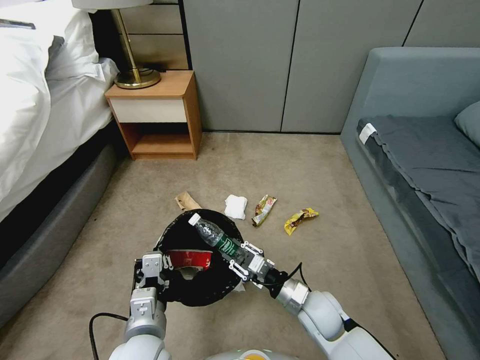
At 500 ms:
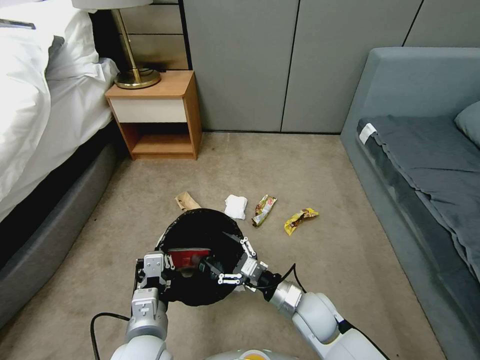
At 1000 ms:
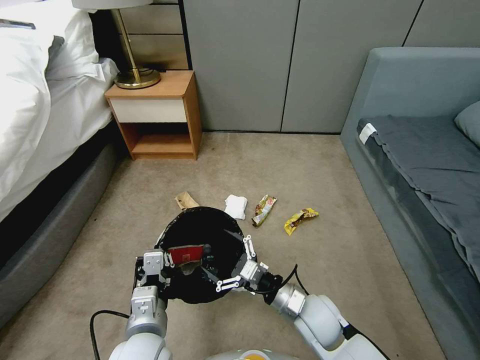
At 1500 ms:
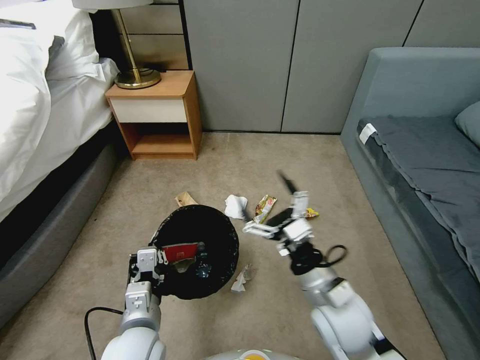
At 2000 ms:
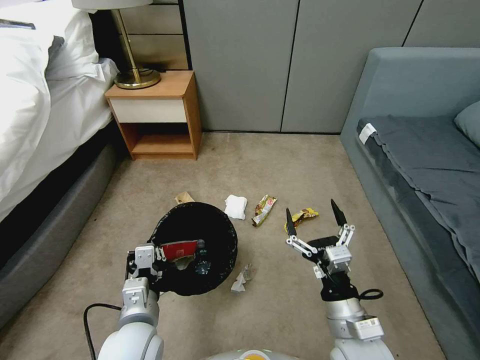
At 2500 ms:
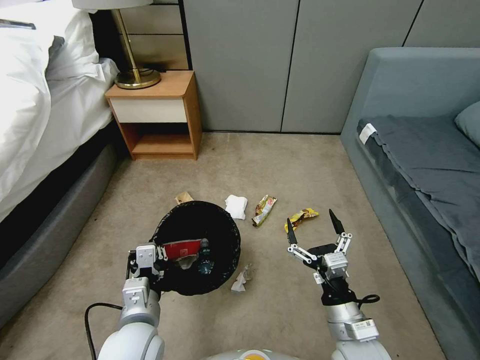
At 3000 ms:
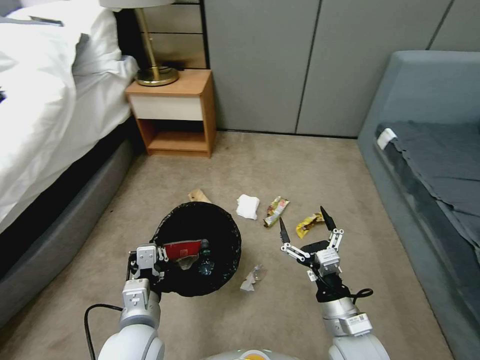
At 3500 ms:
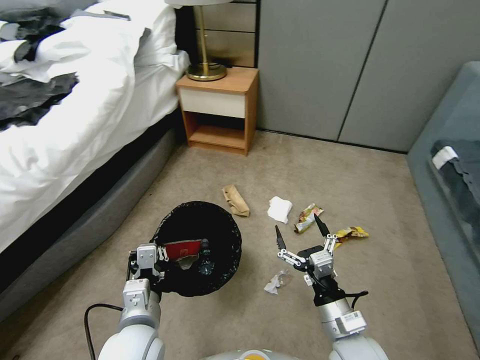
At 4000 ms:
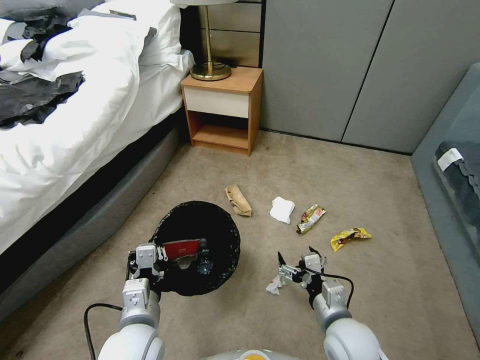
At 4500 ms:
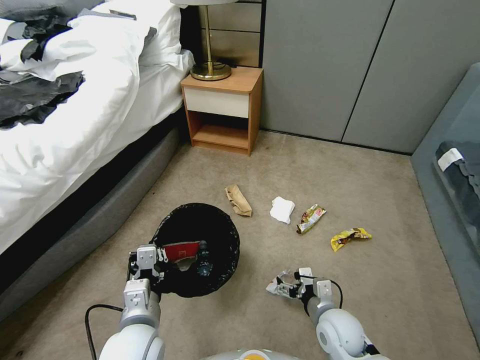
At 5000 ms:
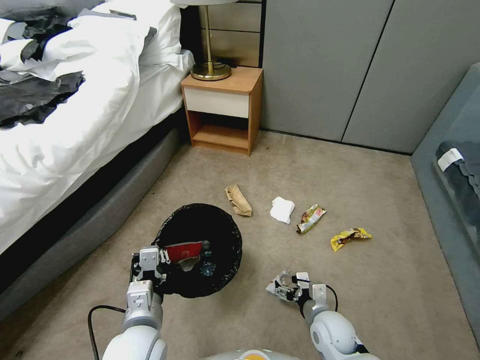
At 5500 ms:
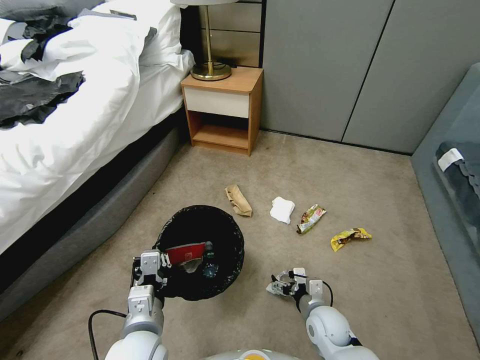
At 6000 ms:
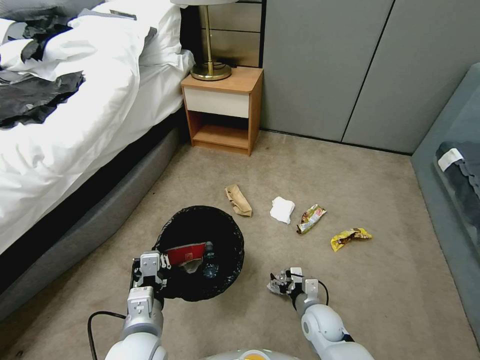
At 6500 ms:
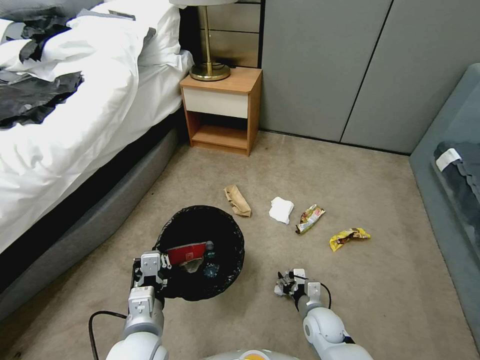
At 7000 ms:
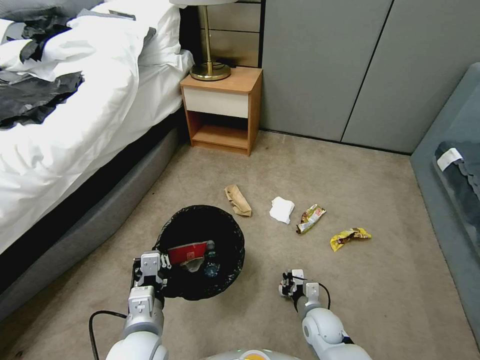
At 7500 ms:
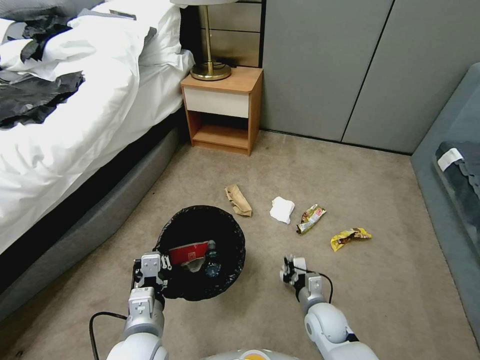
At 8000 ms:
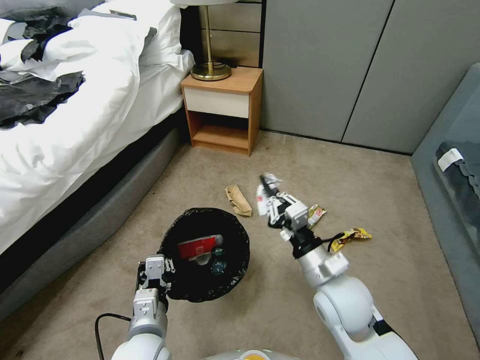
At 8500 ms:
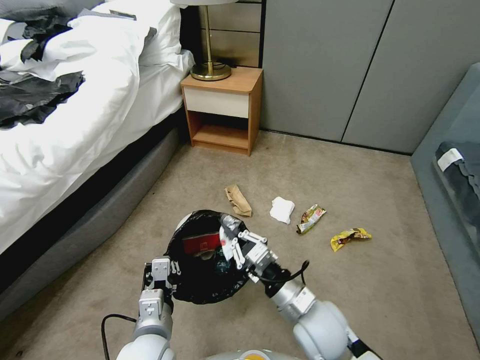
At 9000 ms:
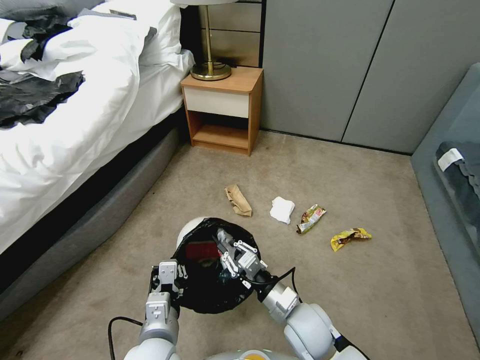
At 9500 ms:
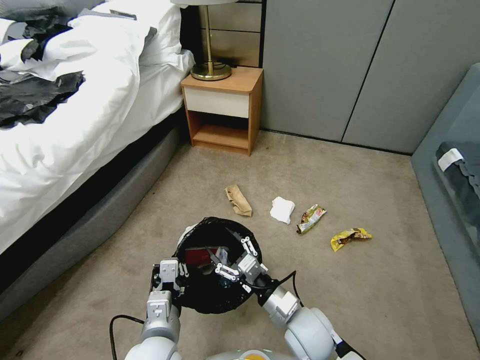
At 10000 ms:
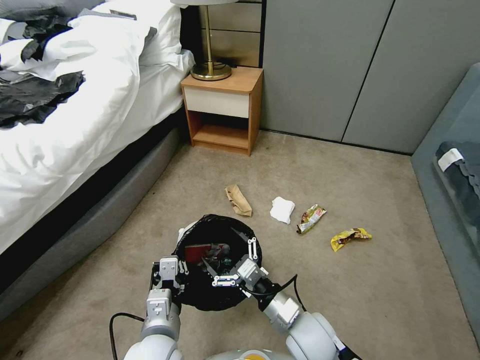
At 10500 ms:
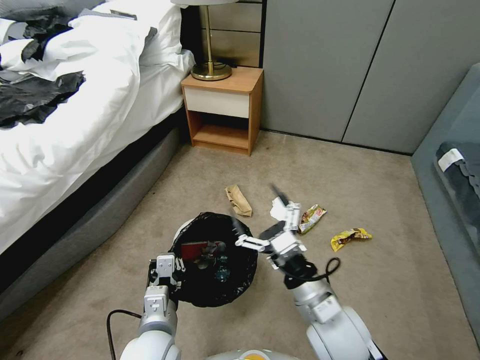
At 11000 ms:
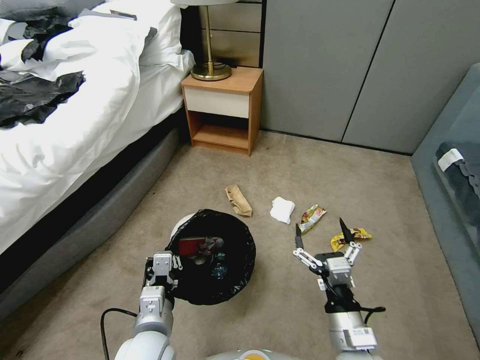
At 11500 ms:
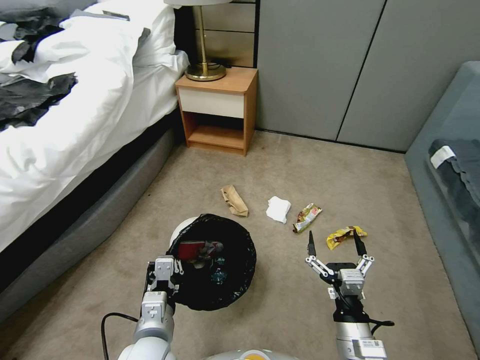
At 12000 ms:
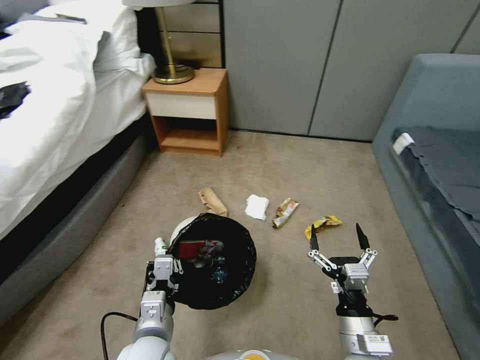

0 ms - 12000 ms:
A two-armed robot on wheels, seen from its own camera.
Task of the whole recording: Pick up the trash bin, then pick up the garbage from the floor and place it into the trash bin.
0 ms - 2000 ms: The right gripper moves upward and backward, approximately 15 cm, and opens.
2000 ms - 4000 ms: The right gripper goes some 5 cm downward.
4000 ms - 6000 ms: The right gripper shifts roughly 15 cm downward and forward.
6000 ms - 8000 ms: The right gripper travels upward by approximately 25 cm, and closes its fingers.
8000 ms - 10000 ms: The right gripper goes some 10 cm downward, and opens up.
10000 ms - 12000 ms: The right gripper is displaced to the right and backward by approximately 10 cm, and travels upward and back again, some 10 cm each way.

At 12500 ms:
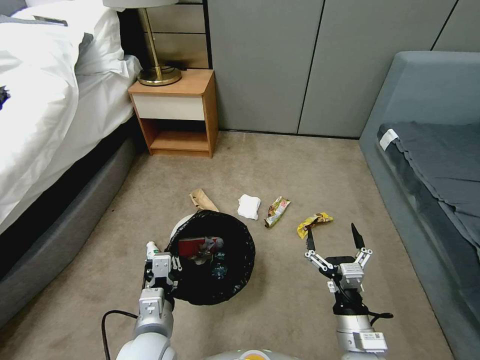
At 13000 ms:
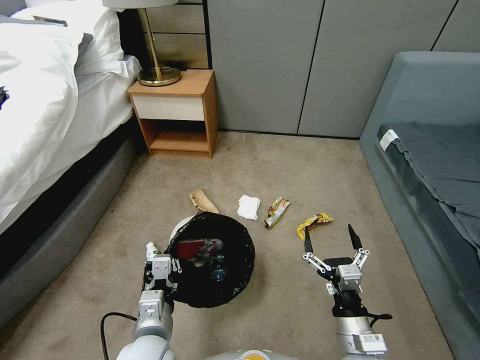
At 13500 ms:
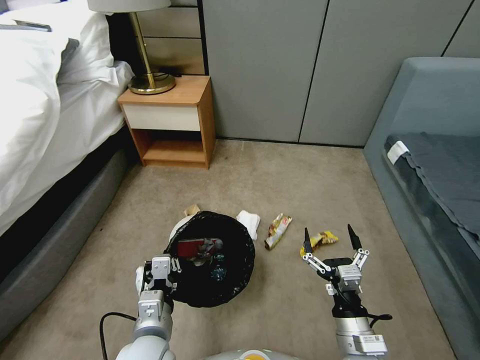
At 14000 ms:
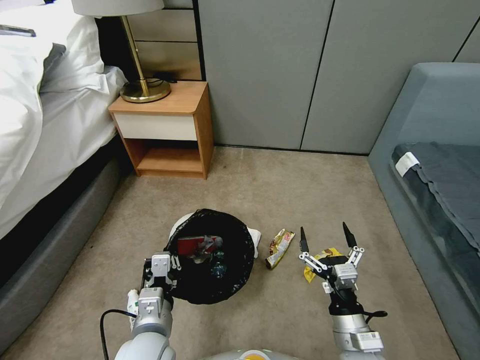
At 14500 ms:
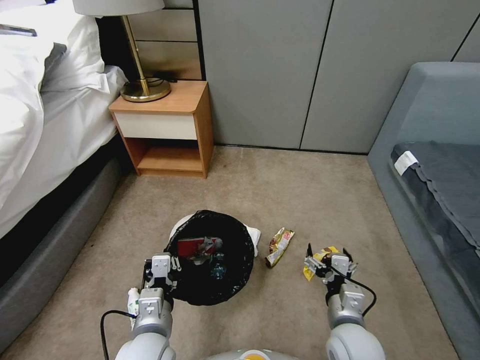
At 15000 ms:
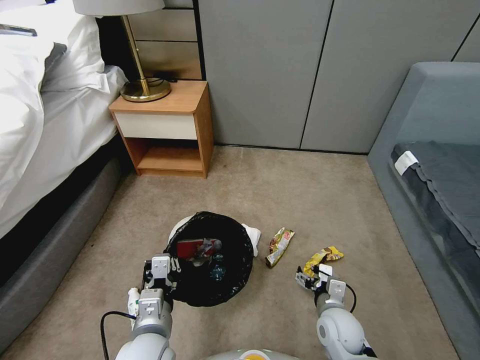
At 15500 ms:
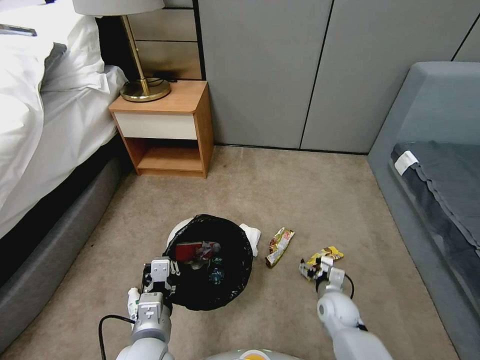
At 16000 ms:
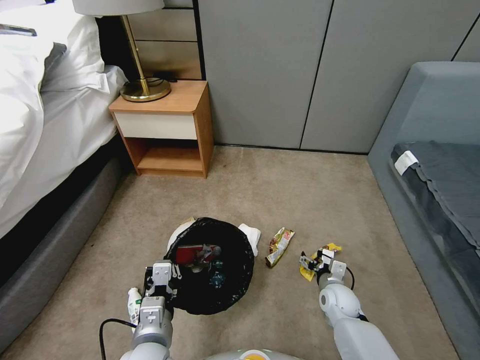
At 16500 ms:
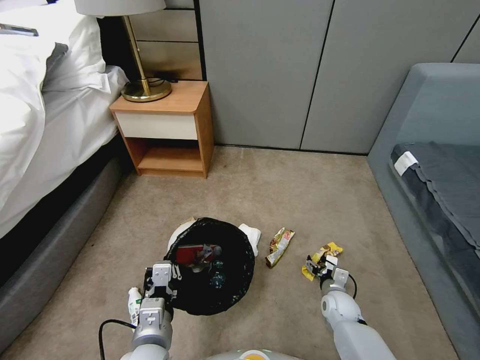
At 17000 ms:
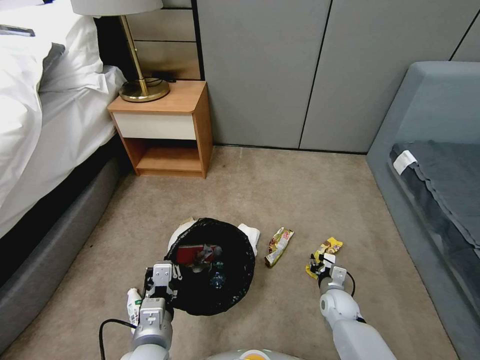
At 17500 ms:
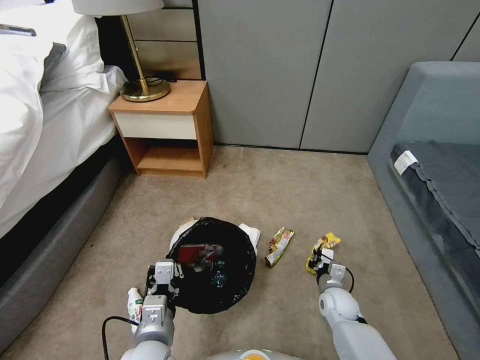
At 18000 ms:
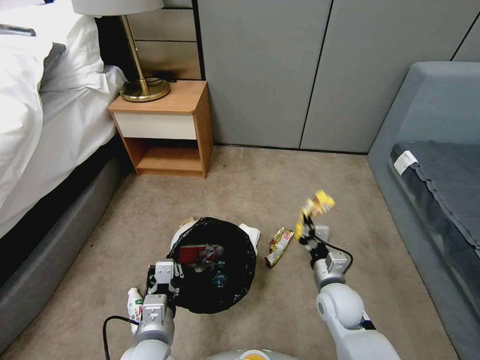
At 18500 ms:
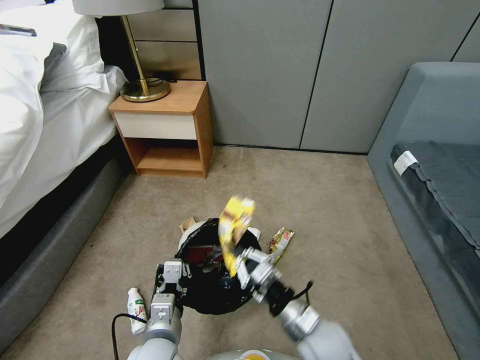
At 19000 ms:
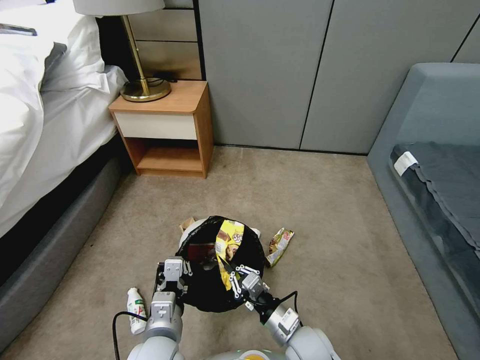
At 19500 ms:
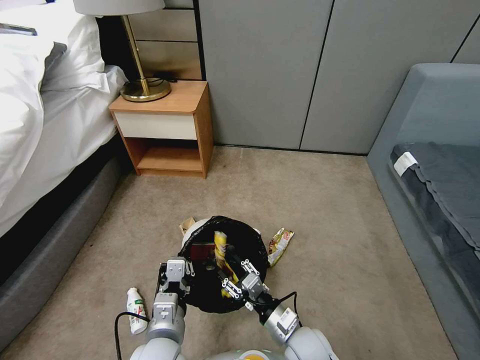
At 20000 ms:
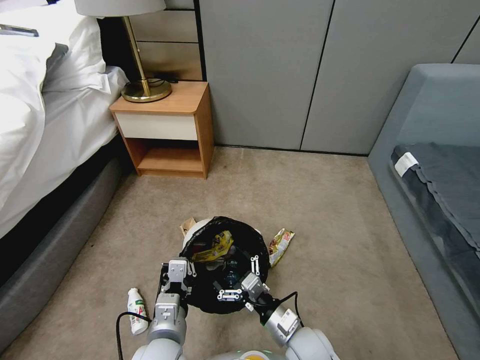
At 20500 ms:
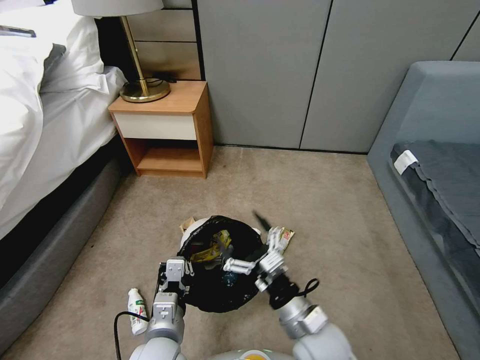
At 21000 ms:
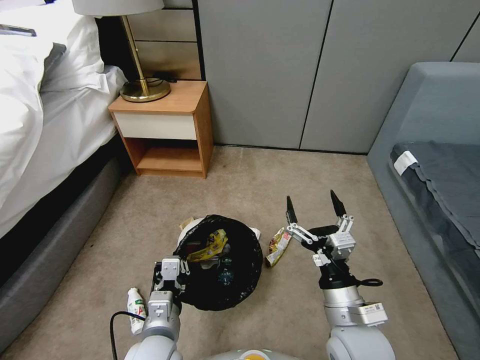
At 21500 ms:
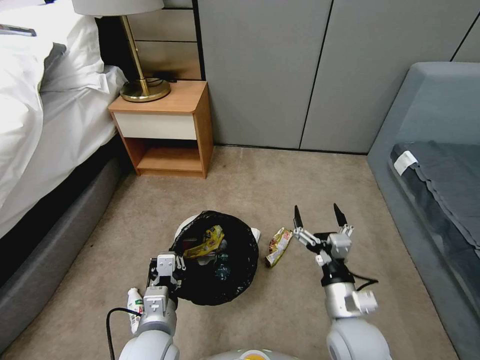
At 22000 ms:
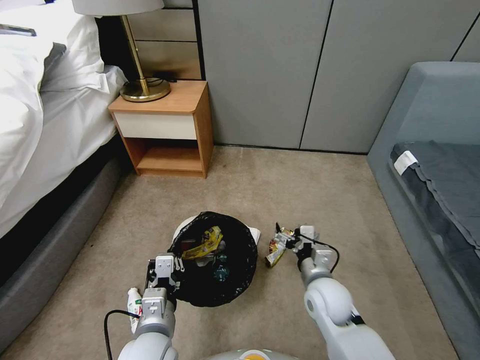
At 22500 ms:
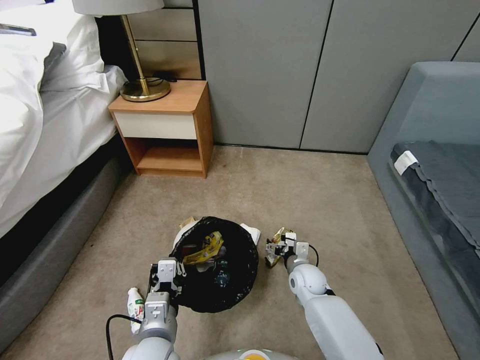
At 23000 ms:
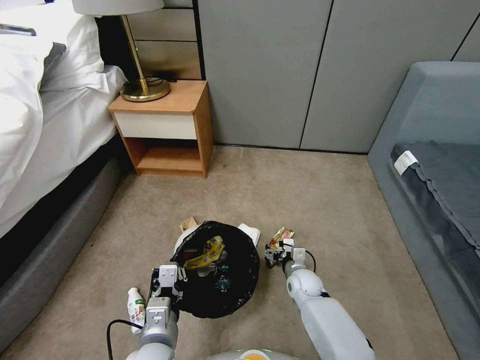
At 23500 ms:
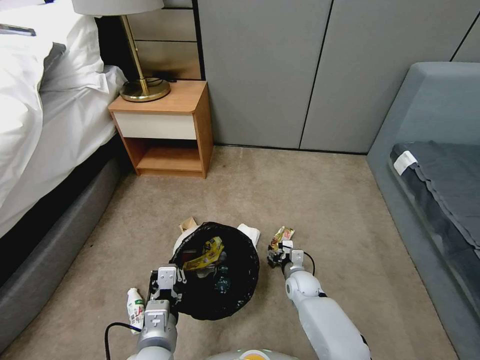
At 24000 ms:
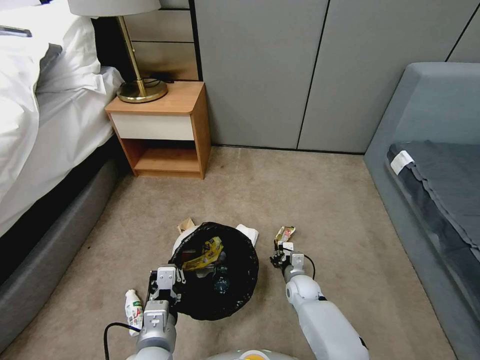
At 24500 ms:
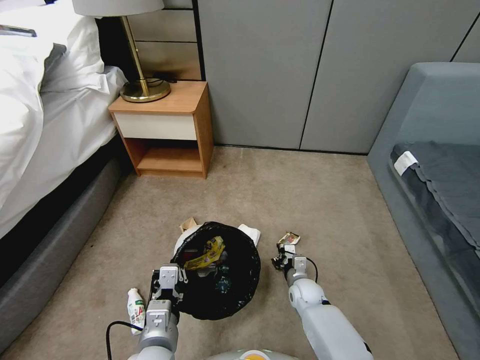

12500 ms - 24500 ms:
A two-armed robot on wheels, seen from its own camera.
Task of the whole recording: Pick up the trash bin, then pick up the garbage from the floor and place it into the trash bin.
14500 ms - 16500 ms: The right gripper travels downward and forward by approximately 20 cm.
16500 ms - 18500 ms: The right gripper is displaced upward, to the left and backward by about 25 cm, and closes its fingers.
18500 ms - 20500 ms: The right gripper opens.
20500 ms - 22500 ms: The right gripper heads forward and downward, covering roughly 25 cm.
22500 ms - 24500 ms: The right gripper goes some 5 cm downward, and closes.

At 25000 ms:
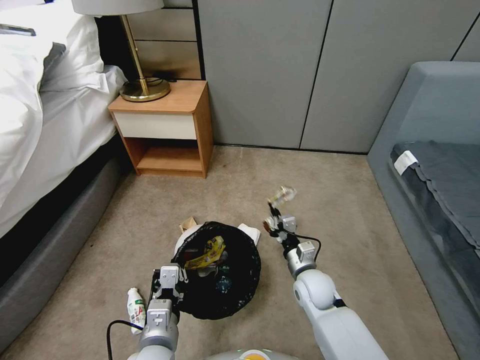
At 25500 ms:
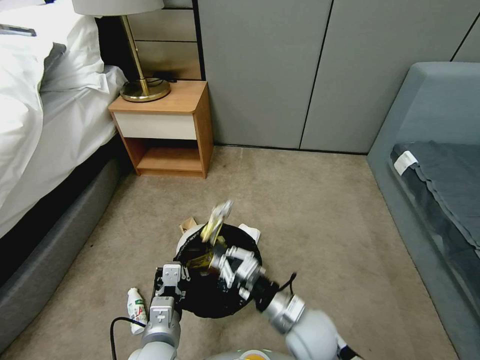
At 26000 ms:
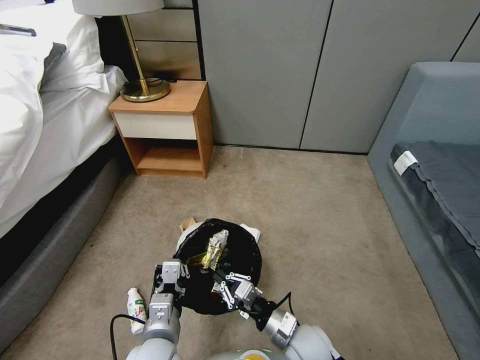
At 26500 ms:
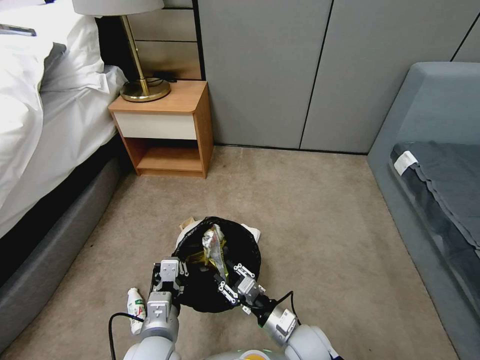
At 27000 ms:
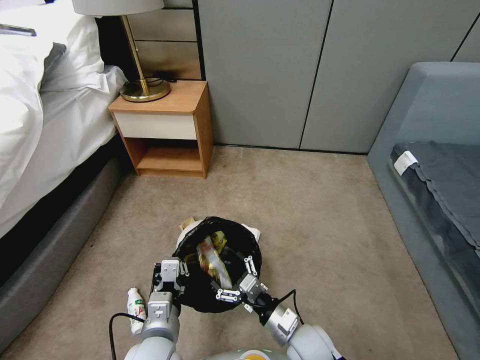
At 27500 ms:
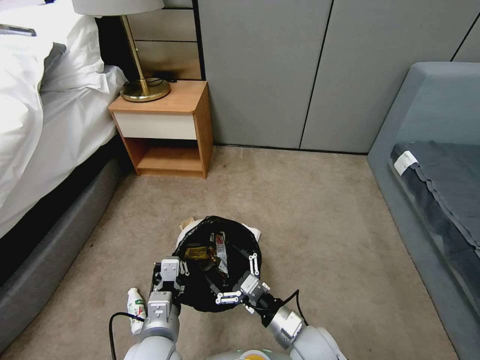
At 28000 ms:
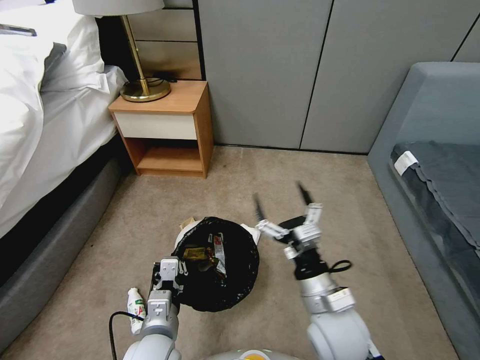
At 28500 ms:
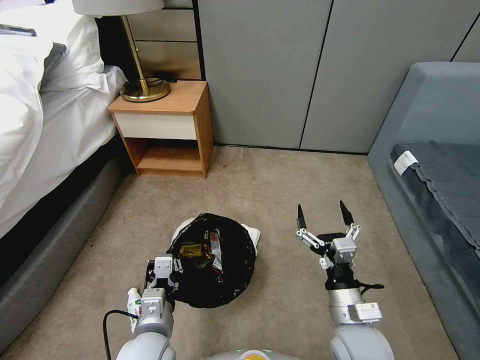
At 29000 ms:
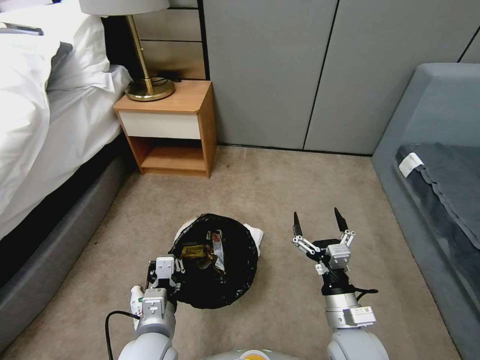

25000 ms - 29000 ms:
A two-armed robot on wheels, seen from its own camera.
Task of the whole recording: Pick up the trash bin, then pick up the garbage from the floor and place it into the trash bin.
25000 ms - 27000 ms: The right gripper goes roughly 10 cm backward, and opens.
27000 ms - 29000 ms: The right gripper heads upward and to the right, covering some 10 cm.
